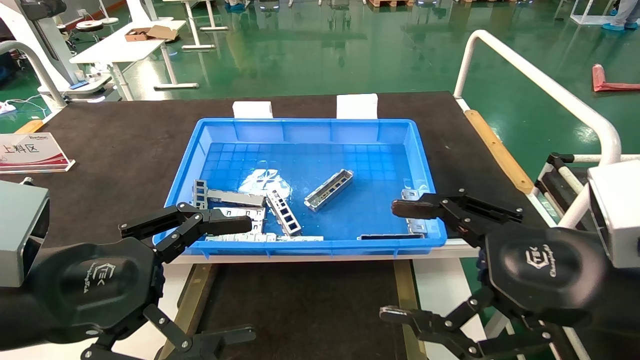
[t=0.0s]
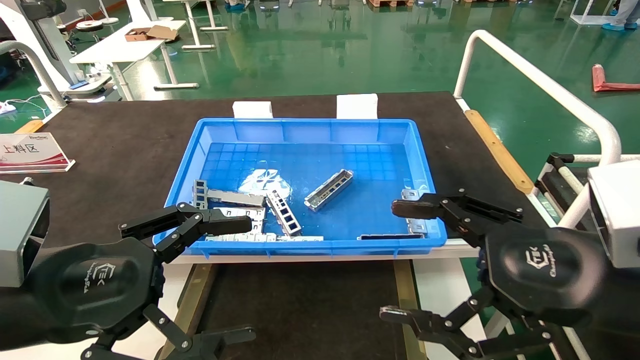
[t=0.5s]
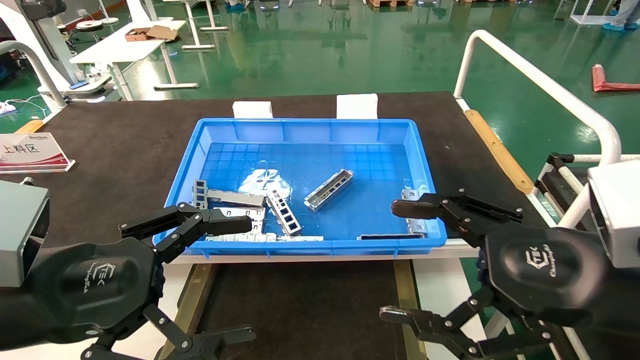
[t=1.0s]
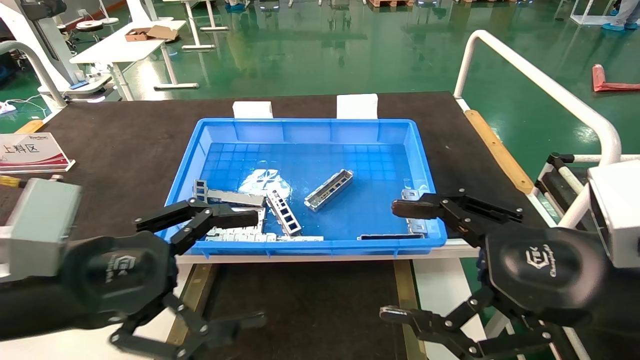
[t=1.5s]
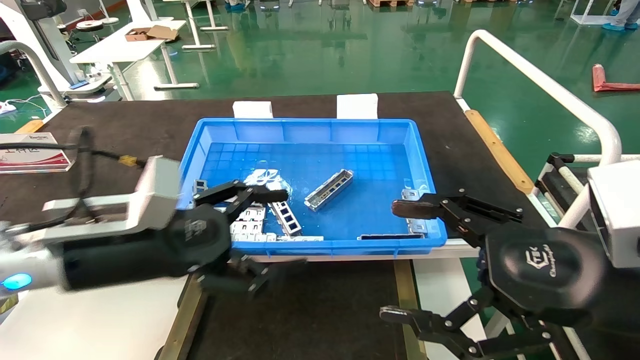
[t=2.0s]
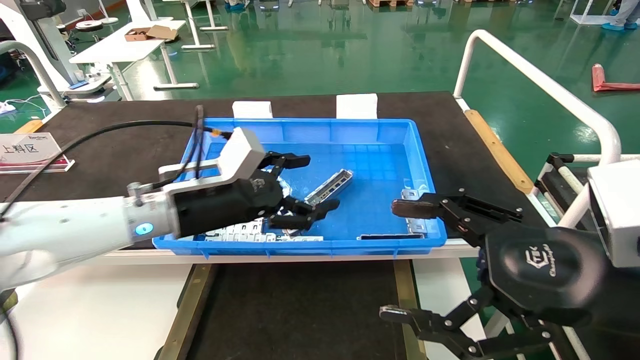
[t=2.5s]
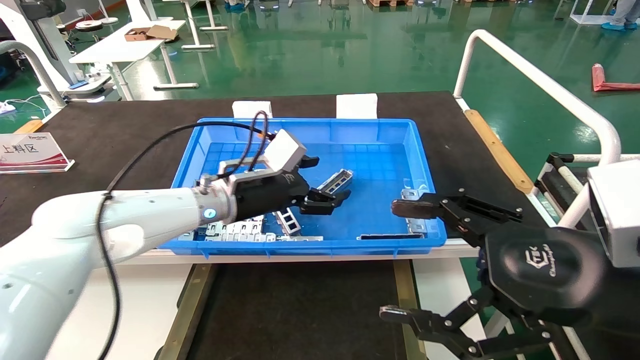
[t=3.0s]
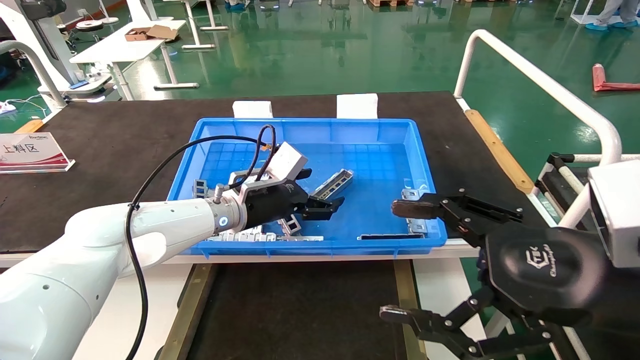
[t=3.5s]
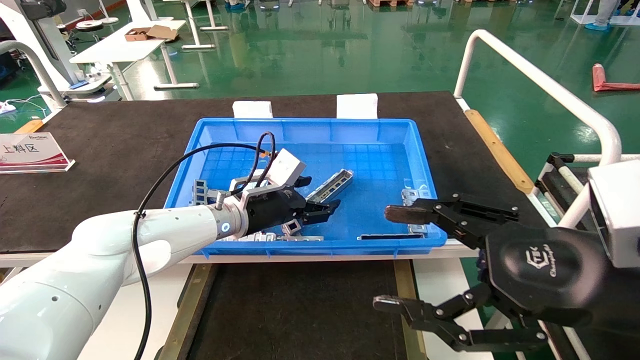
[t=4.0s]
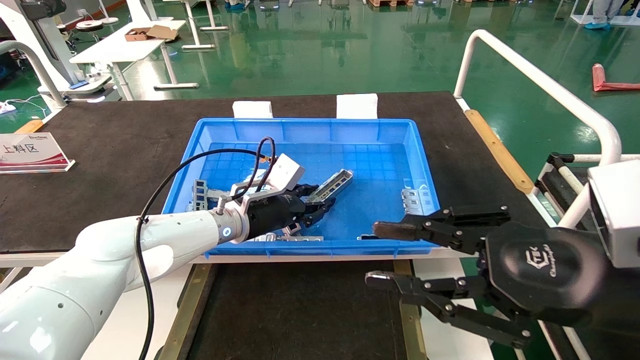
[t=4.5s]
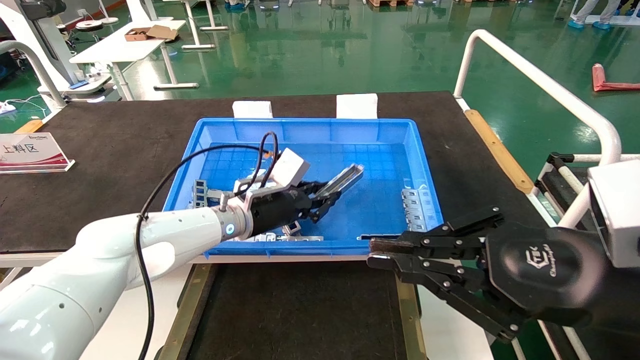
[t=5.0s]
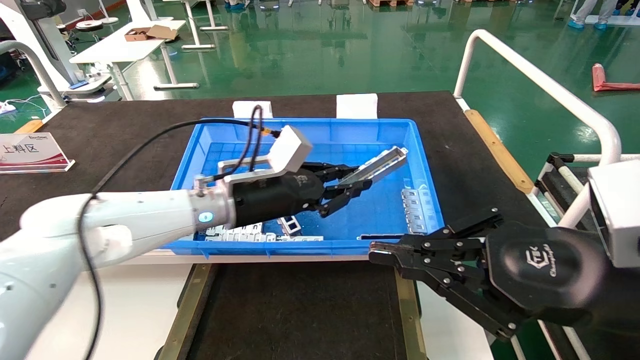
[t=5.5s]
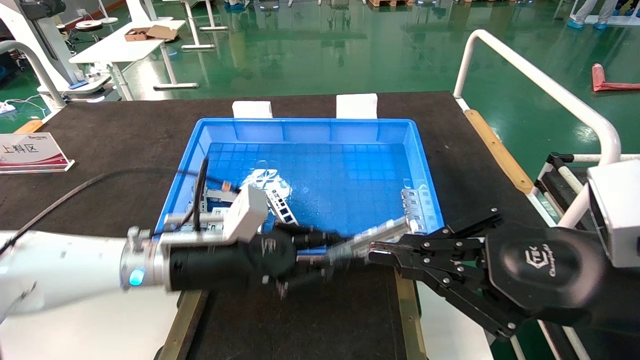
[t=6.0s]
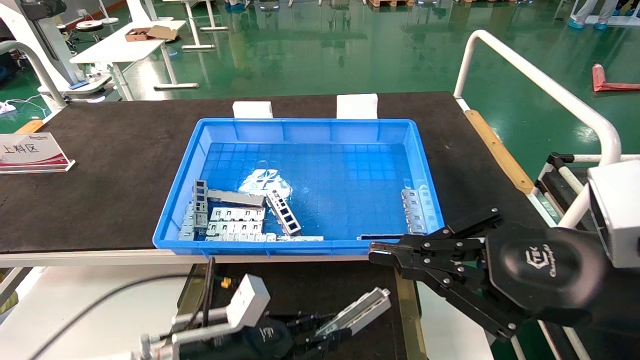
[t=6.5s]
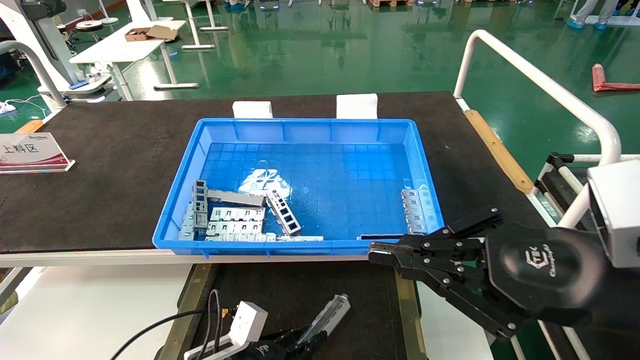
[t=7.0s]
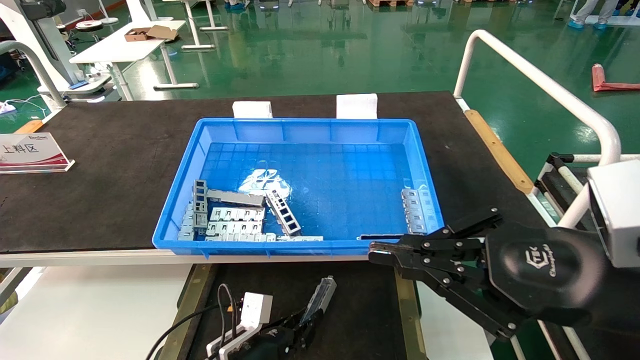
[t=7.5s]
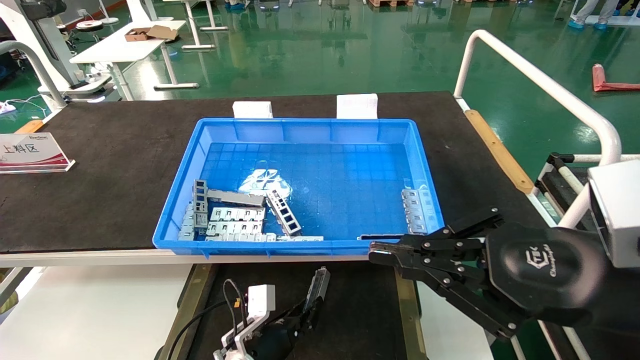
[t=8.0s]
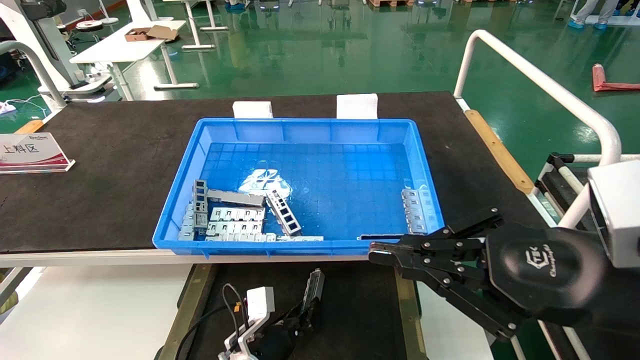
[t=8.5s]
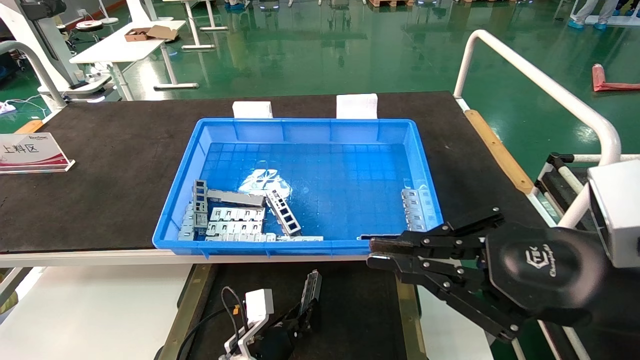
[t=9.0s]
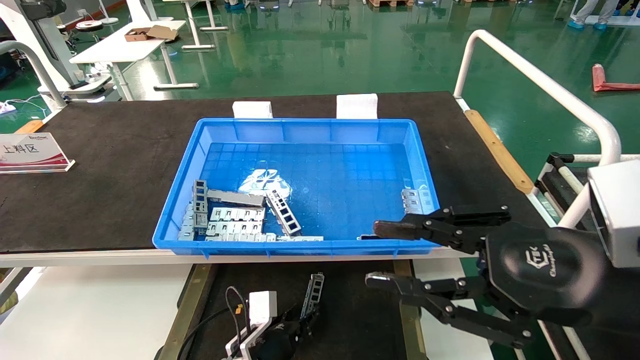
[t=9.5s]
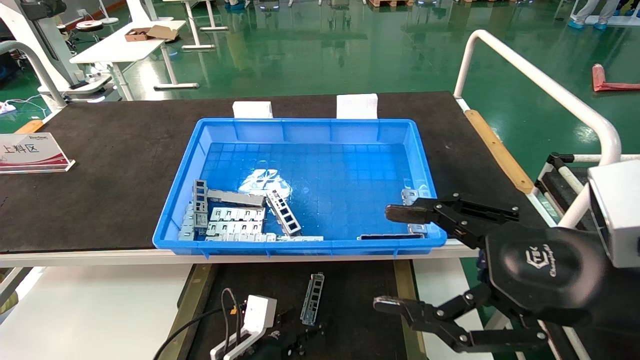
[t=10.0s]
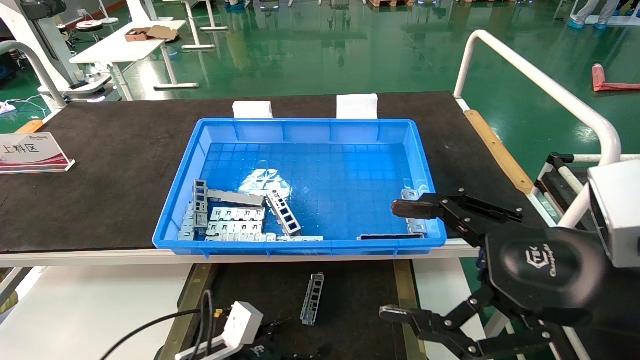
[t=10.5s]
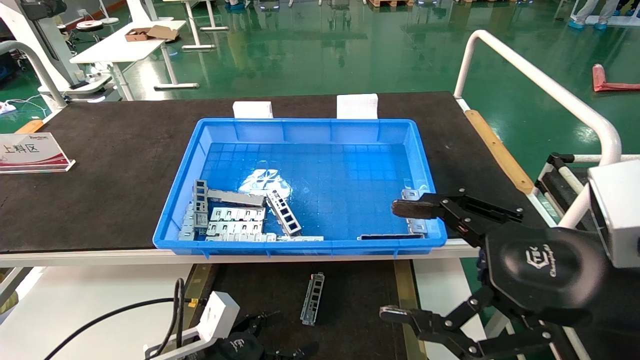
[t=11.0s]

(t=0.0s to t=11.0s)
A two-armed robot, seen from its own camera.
Task of the whole recording: Grasp the part with one hand and place it on the black container.
Step, t=2.0s - t=5.0s: Pick up the front USB bracket from the feeding area.
Step, t=5.5s - t=9.0s: Place the front USB bracket into the box.
t=0.0s - t=2.0s: The left gripper is displaced forward by roughly 10 cm.
t=2.0s - t=3.5s: The left gripper travels forward and to the right by about 20 cm.
t=3.5s - t=5.5s: The left gripper goes roughly 5 cm backward, and closes its fingers. The right gripper closes its fingers.
t=5.5s - t=7.5s: The left gripper travels downward by roughly 30 cm.
t=7.5s - t=9.0s: There are only small adjustments of the grippers.
t=9.0s - t=11.0s: The left gripper moves backward, to the left and upward, roughly 15 cm, and opens its fingers. Meanwhile the right gripper opens its fingers.

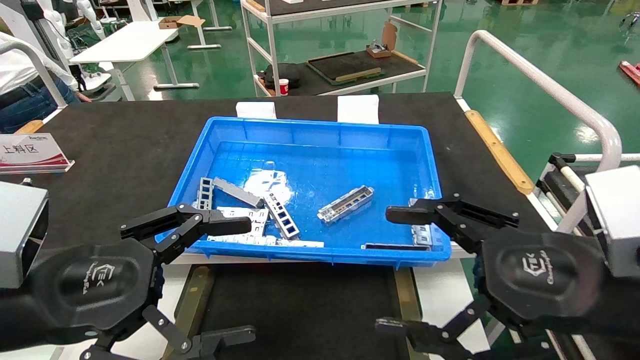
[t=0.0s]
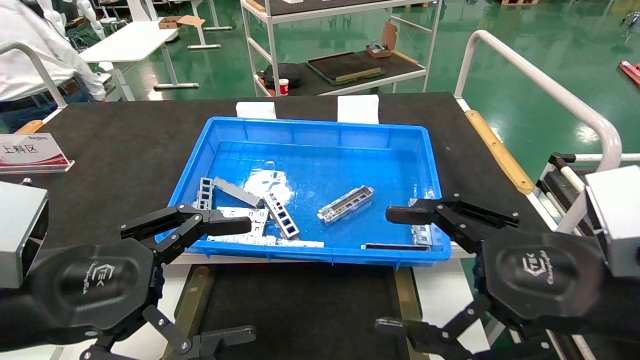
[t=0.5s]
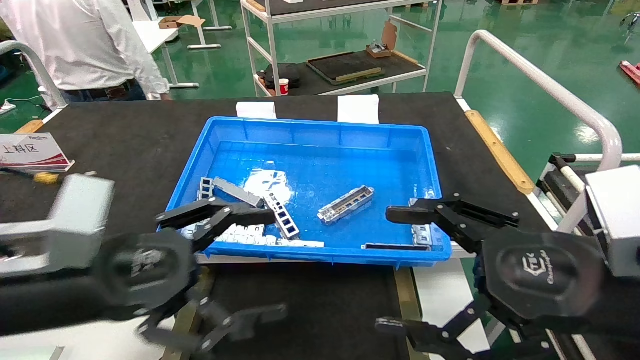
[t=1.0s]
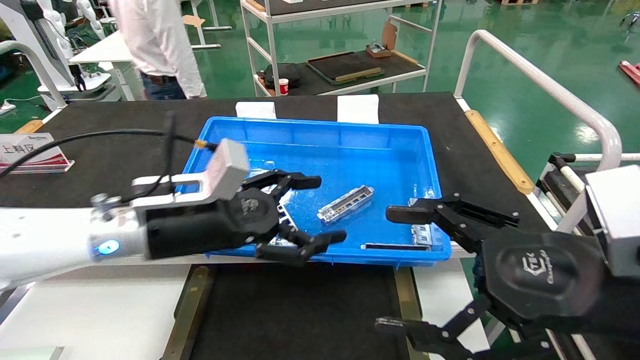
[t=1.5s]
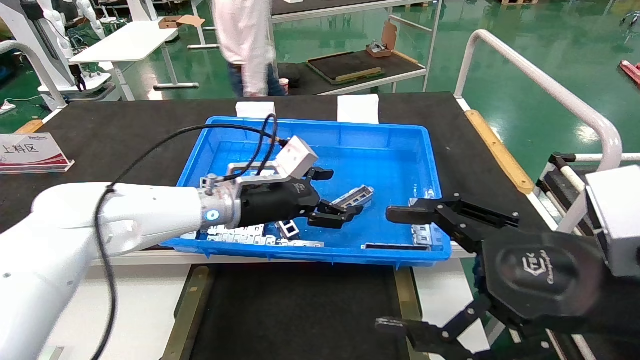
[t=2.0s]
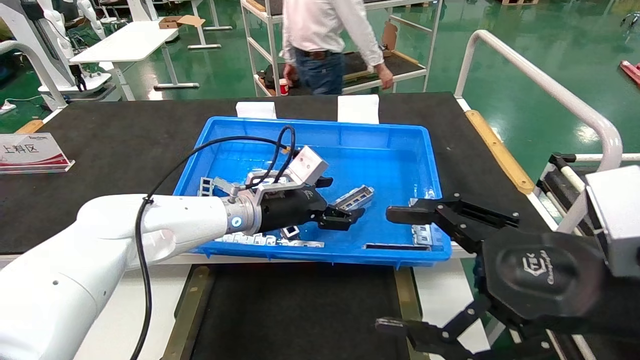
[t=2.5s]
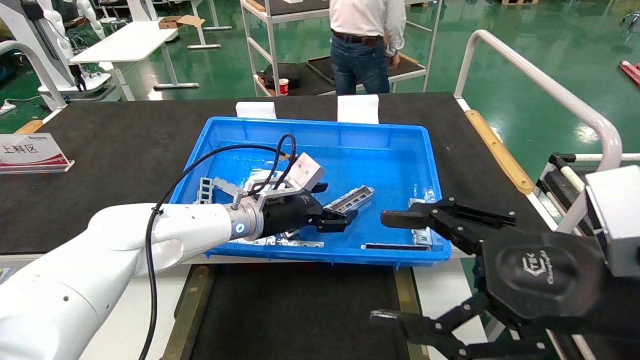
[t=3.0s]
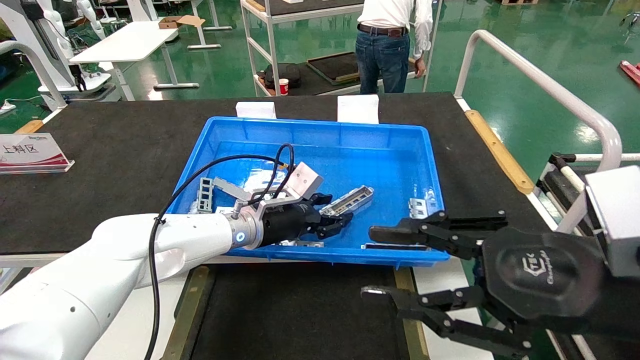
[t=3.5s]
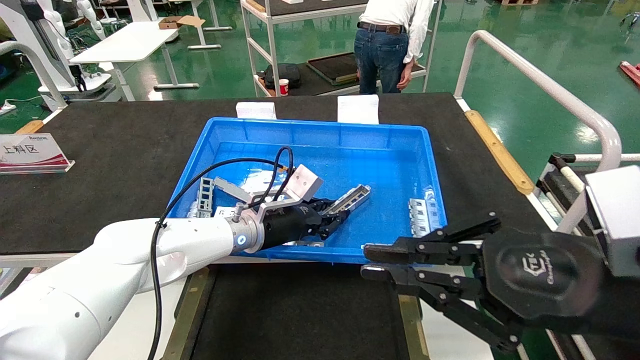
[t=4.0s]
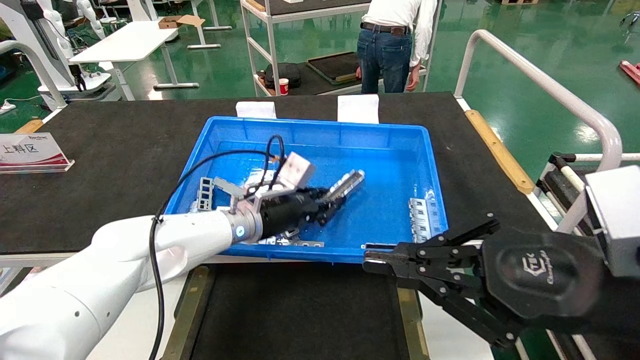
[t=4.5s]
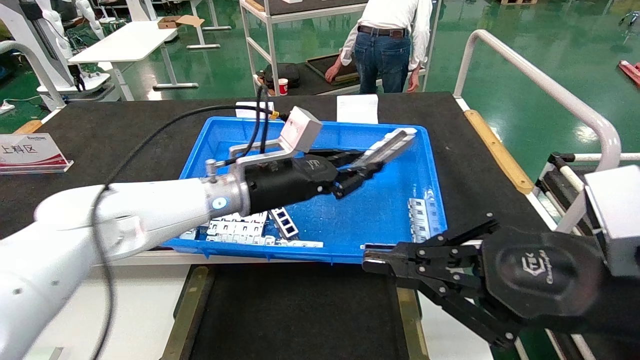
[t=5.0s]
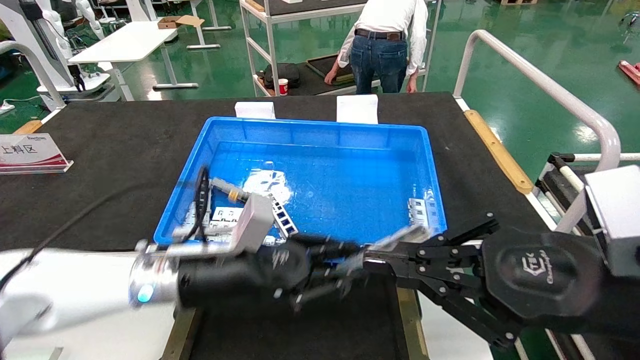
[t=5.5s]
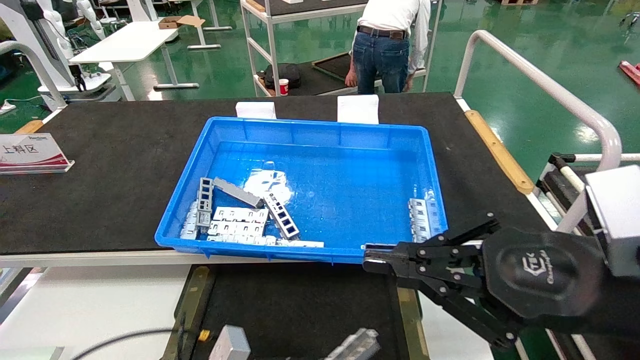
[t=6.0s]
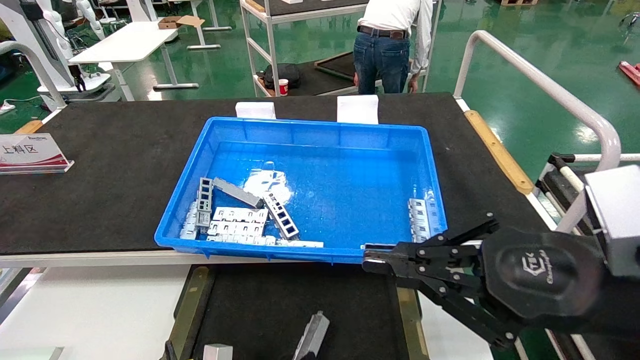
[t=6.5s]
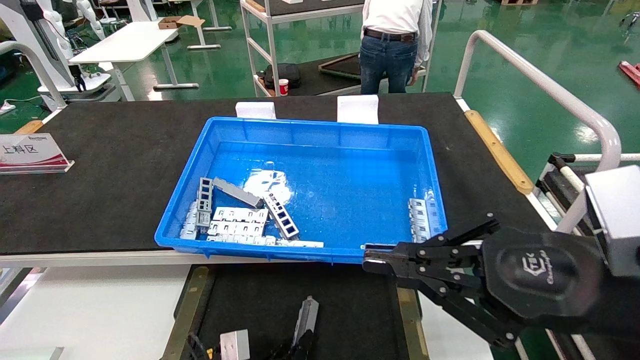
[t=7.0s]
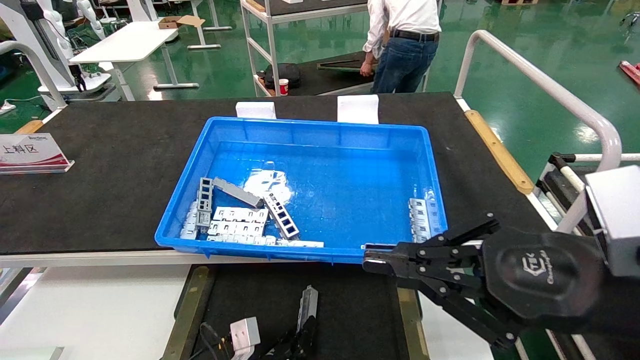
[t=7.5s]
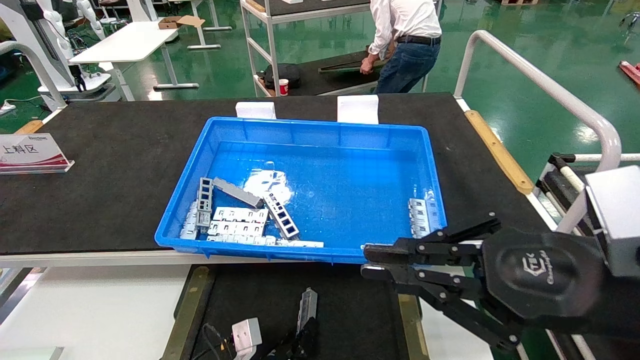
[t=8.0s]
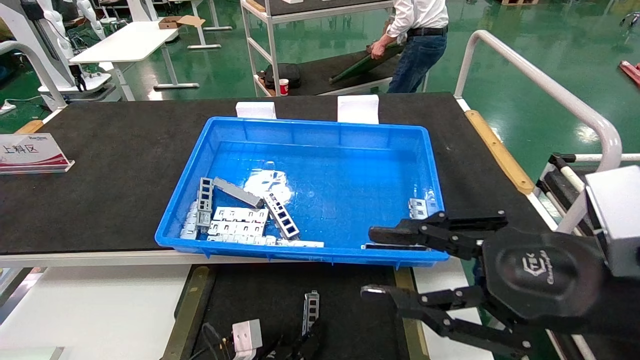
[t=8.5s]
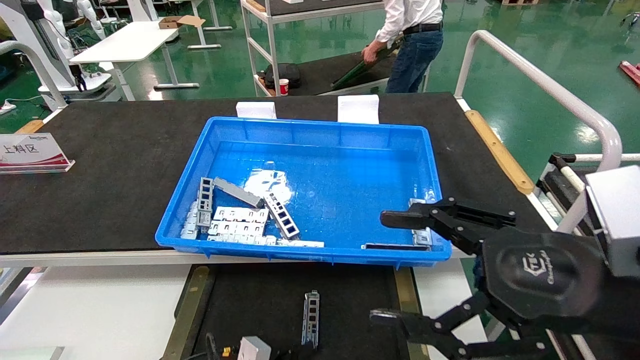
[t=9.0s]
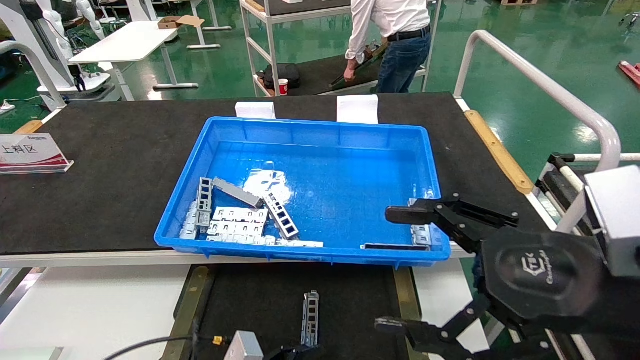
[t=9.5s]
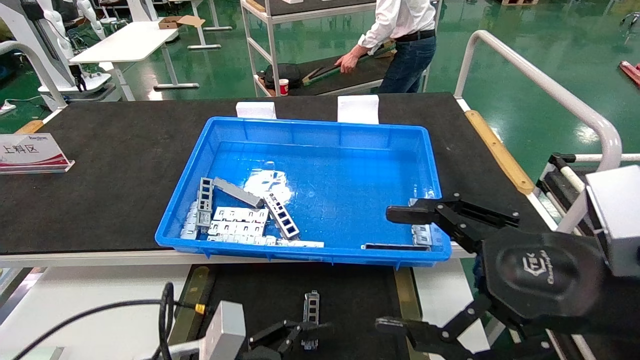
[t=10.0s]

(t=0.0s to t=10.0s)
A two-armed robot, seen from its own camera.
Task of the whole recording: Grasp the part with one hand and place it on the black container.
Step, t=1.0s - t=4.0s: Pick up the front USB bracket from the feeding area.
Step, t=4.5s - t=8.0s: Place the front USB bracket into the box.
t=0.0s - t=2.0s: The left gripper shifts approximately 30 cm forward and to the right.
t=2.0s - t=4.0s: The left gripper is displaced downward by roughly 5 cm, and closes up. The right gripper closes its fingers.
t=4.0s - t=6.0s: The left gripper travels backward and downward by roughly 25 cm.
t=6.0s - t=8.0s: The left gripper shifts some 15 cm downward, forward and to the right.
t=8.0s - t=10.0s: The left gripper goes roughly 20 cm upward and backward, and opens. The right gripper opens up.
